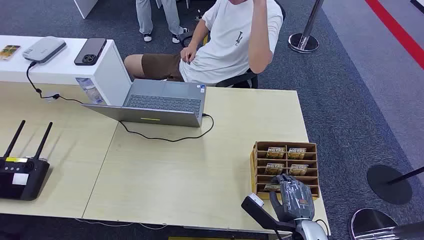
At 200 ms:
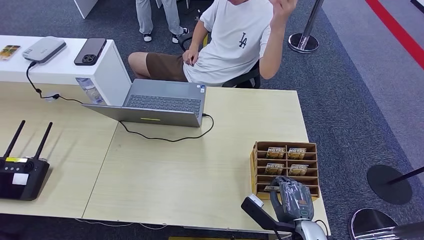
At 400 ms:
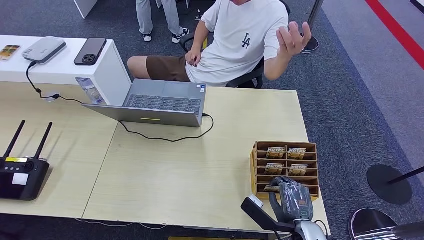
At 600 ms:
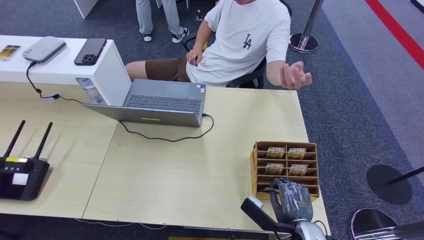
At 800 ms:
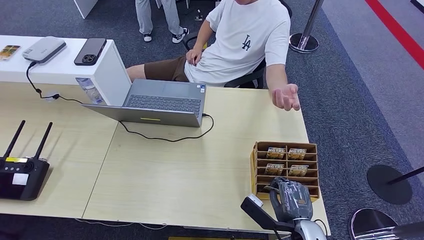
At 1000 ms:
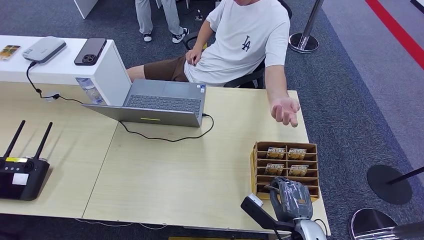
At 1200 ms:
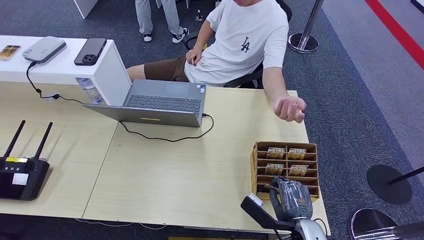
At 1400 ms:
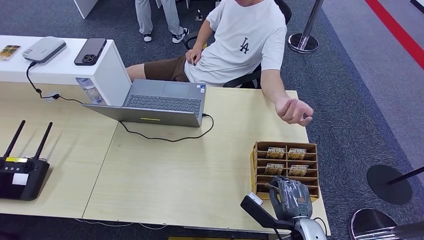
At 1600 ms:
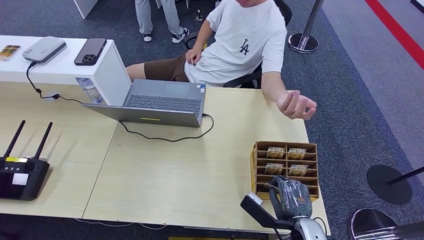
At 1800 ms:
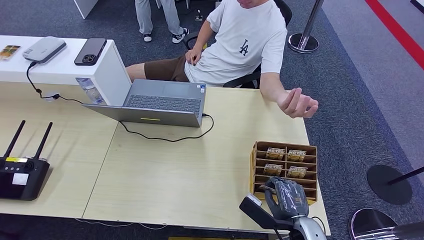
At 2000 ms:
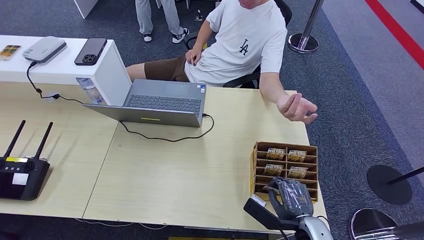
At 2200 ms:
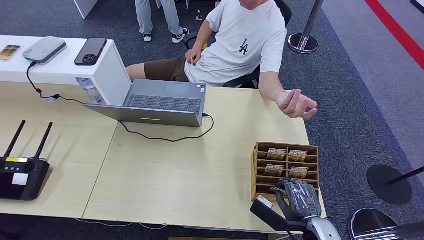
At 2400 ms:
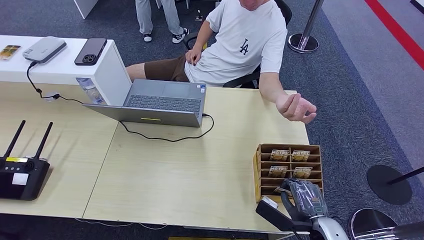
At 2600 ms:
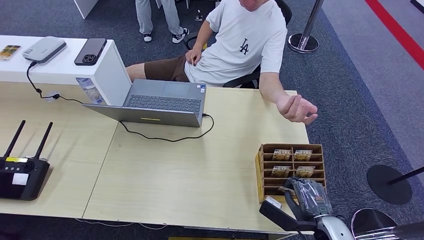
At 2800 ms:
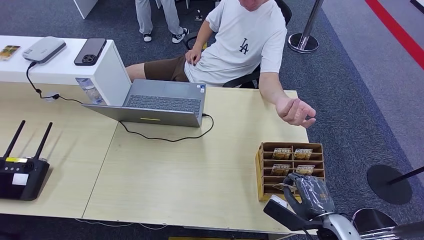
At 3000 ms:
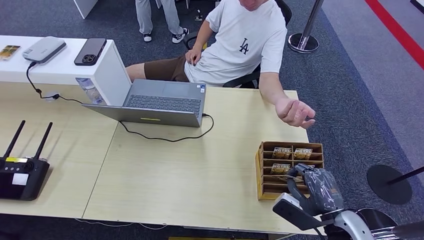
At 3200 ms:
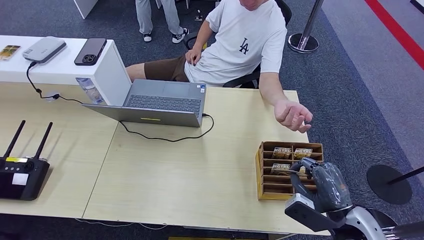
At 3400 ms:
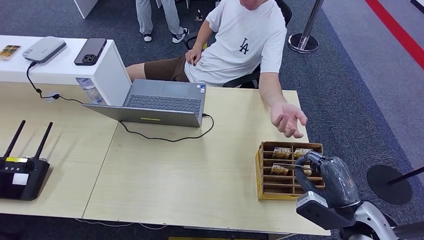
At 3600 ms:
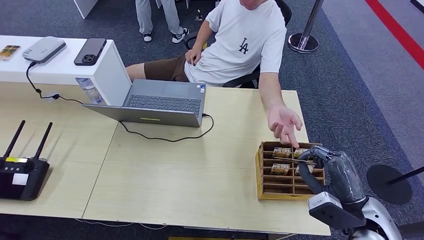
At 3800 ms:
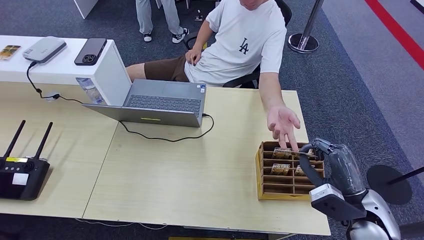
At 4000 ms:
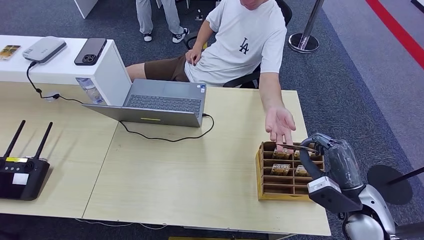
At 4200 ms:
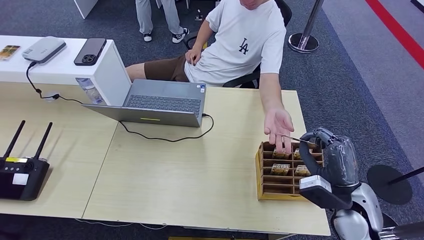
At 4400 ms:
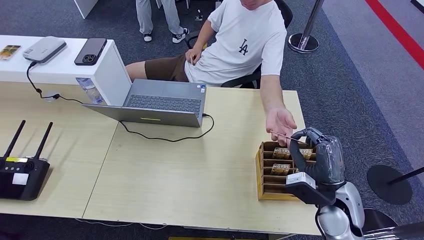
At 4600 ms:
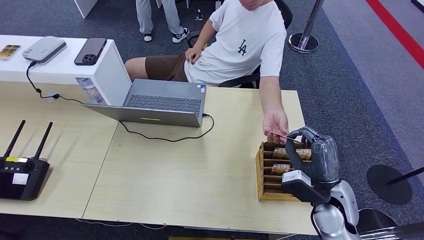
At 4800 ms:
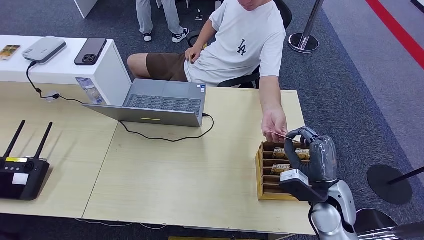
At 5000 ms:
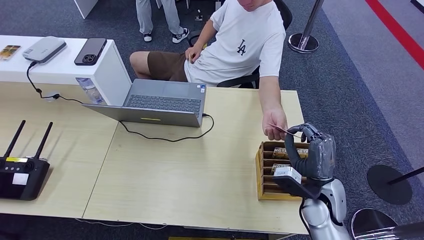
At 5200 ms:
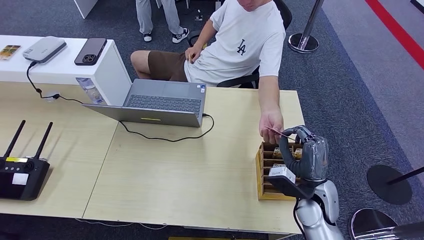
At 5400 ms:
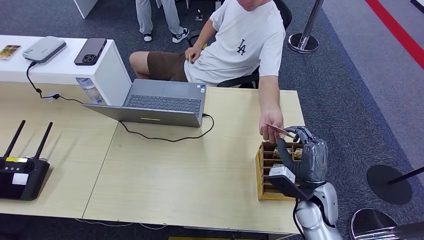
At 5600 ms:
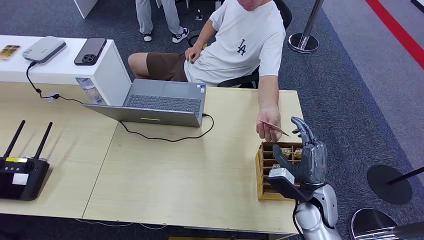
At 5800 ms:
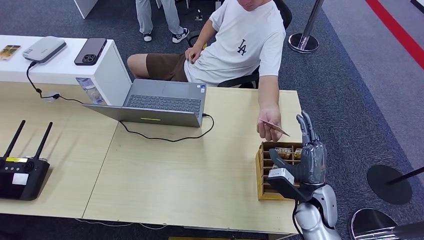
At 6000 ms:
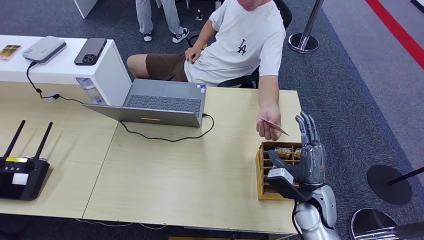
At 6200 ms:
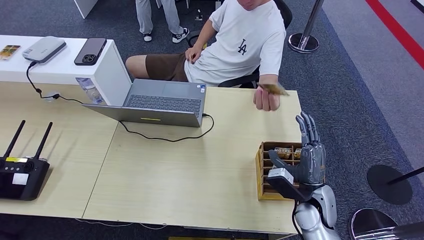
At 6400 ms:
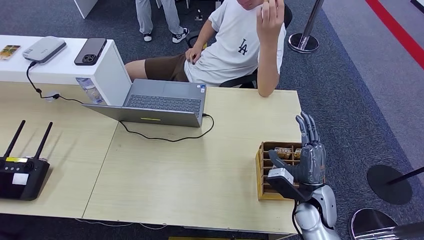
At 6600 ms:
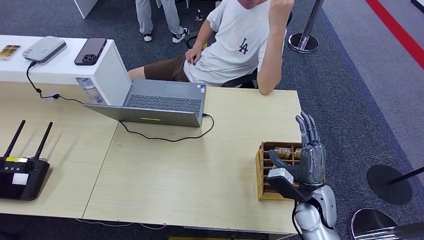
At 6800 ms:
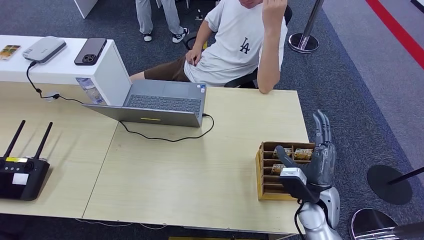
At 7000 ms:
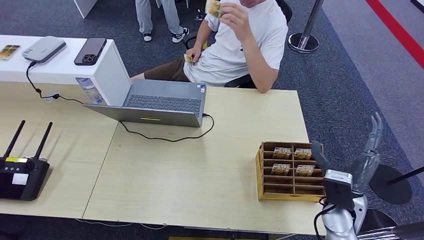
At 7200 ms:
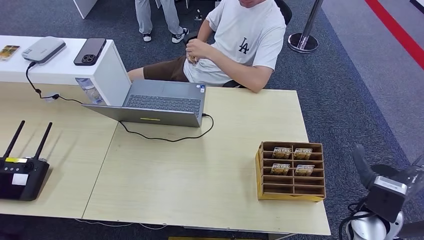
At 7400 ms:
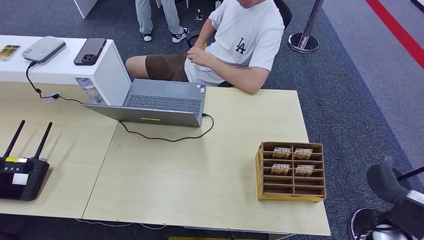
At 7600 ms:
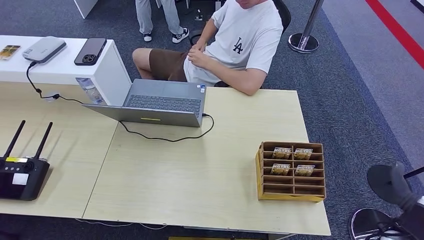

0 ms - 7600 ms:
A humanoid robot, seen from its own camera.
Step, 0 ms - 2800 ms: Pick up the key card from the card box.
Step, 3200 ms - 7600 ms: Hand the key card to the target.
1600 ms - 3000 ms: The right hand travels to the right and upward by roughly 10 cm.
3000 ms - 4600 ms: The right hand travels forward by approximately 5 cm.
4600 ms - 6000 ms: The right hand ends up some 5 cm from where it was.
6000 ms - 7600 ms: The right hand goes some 20 cm to the right and backward.
